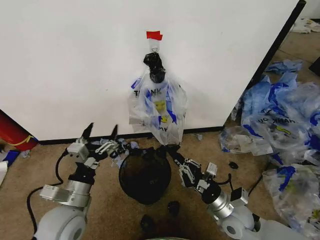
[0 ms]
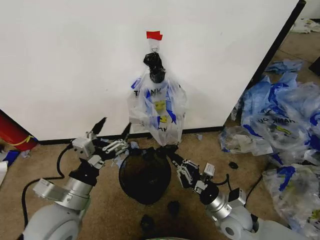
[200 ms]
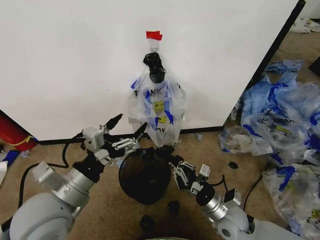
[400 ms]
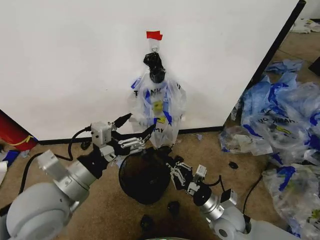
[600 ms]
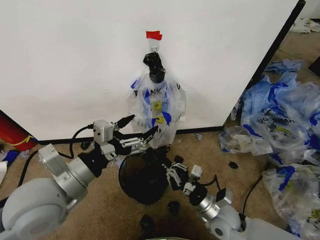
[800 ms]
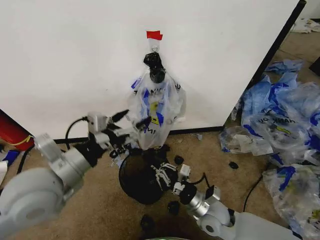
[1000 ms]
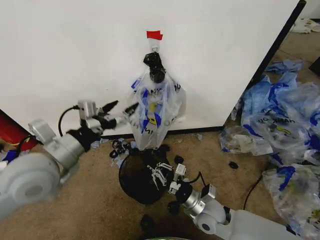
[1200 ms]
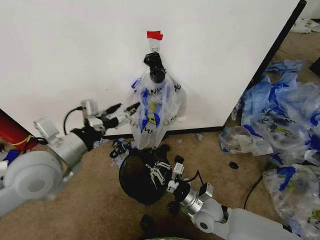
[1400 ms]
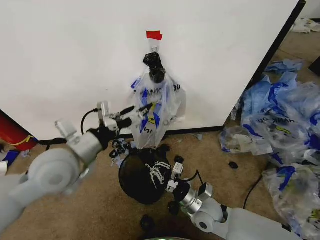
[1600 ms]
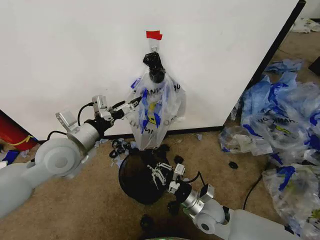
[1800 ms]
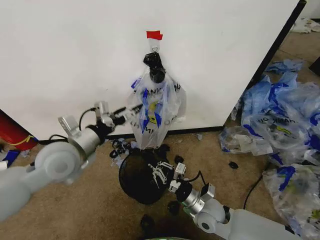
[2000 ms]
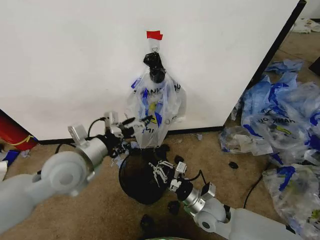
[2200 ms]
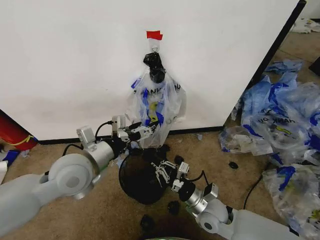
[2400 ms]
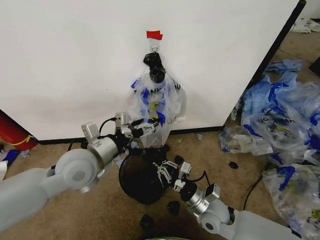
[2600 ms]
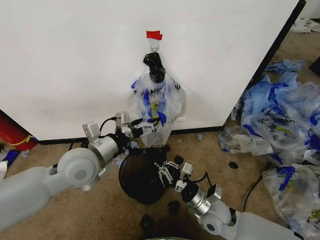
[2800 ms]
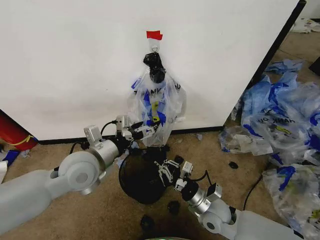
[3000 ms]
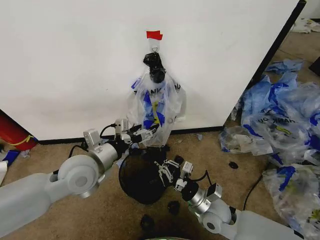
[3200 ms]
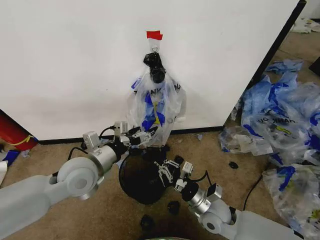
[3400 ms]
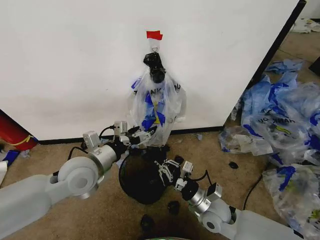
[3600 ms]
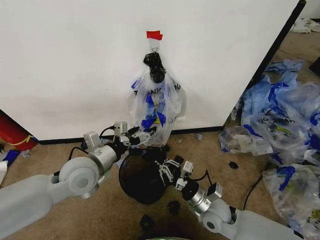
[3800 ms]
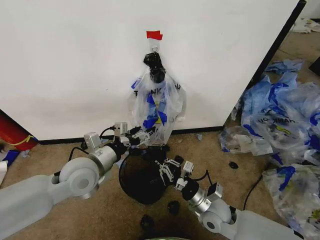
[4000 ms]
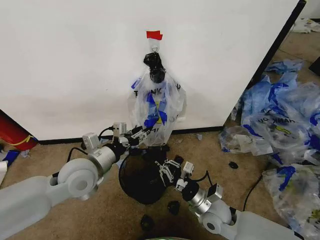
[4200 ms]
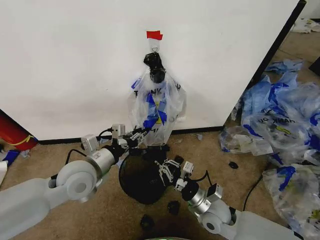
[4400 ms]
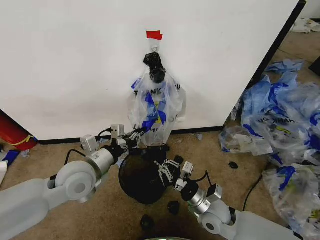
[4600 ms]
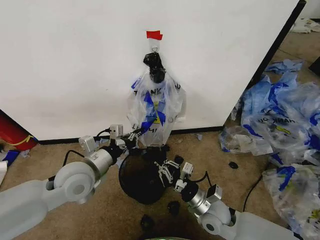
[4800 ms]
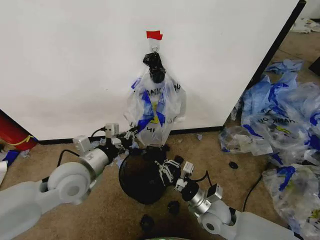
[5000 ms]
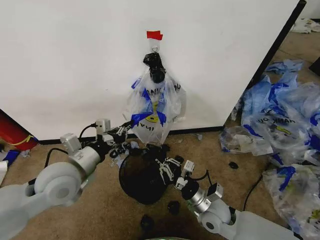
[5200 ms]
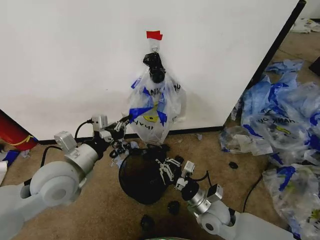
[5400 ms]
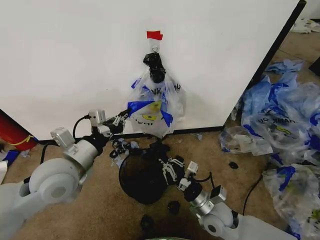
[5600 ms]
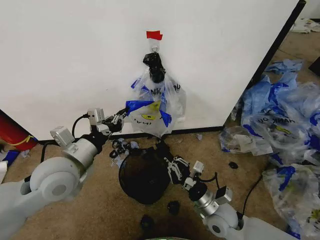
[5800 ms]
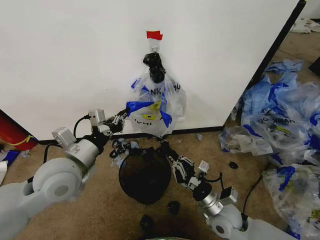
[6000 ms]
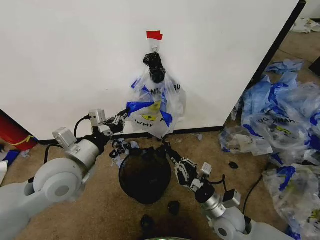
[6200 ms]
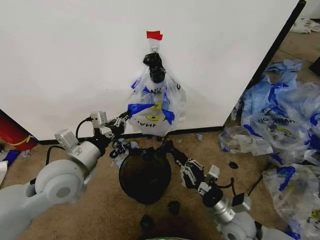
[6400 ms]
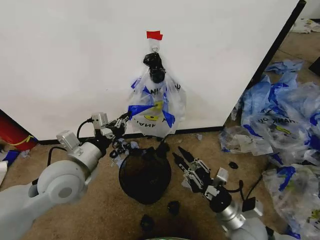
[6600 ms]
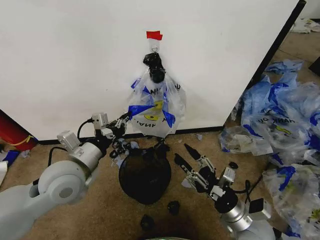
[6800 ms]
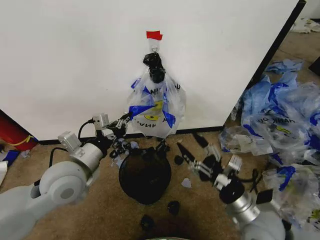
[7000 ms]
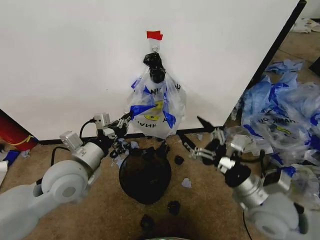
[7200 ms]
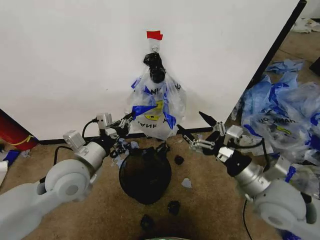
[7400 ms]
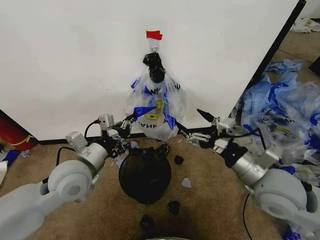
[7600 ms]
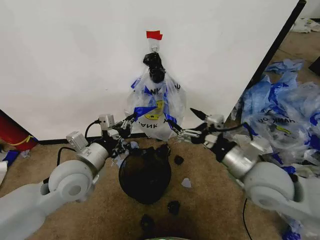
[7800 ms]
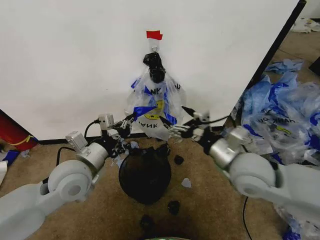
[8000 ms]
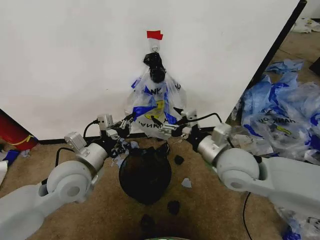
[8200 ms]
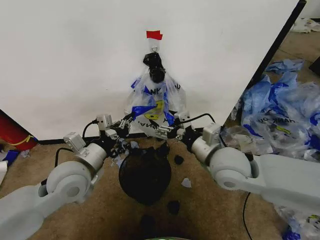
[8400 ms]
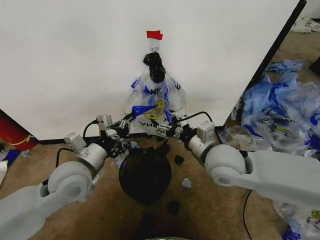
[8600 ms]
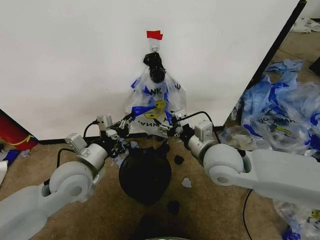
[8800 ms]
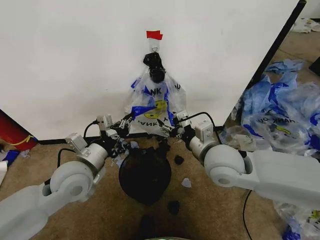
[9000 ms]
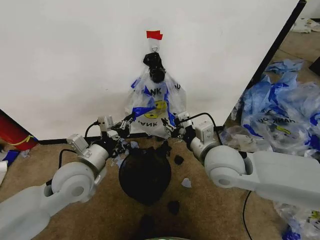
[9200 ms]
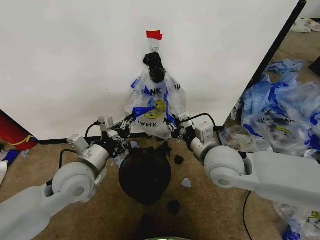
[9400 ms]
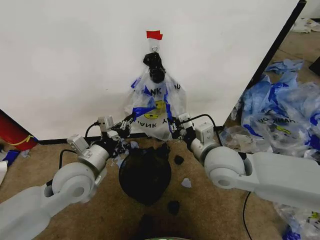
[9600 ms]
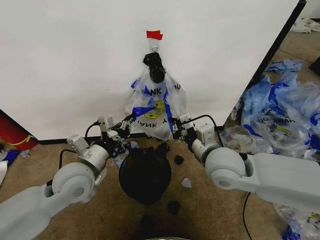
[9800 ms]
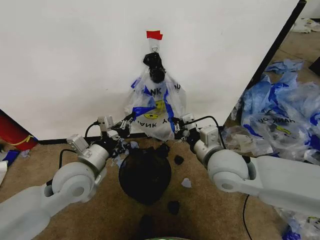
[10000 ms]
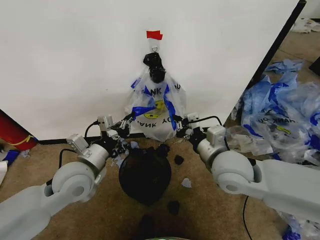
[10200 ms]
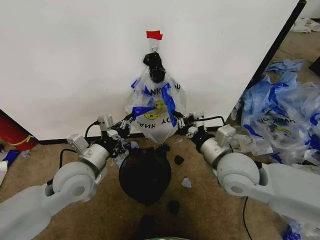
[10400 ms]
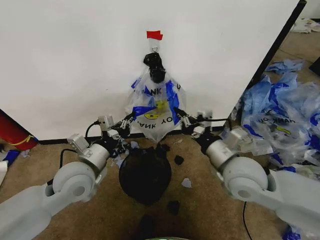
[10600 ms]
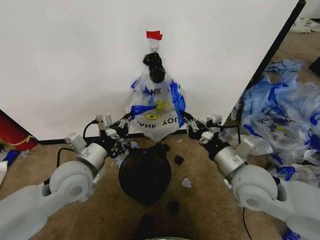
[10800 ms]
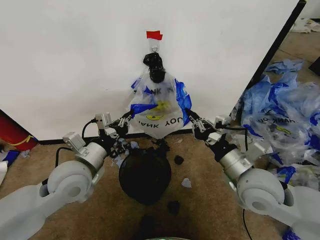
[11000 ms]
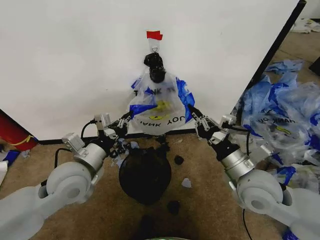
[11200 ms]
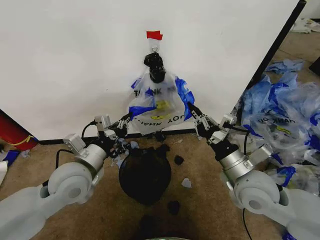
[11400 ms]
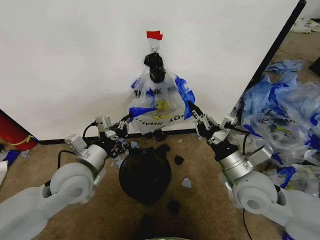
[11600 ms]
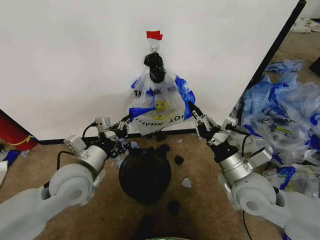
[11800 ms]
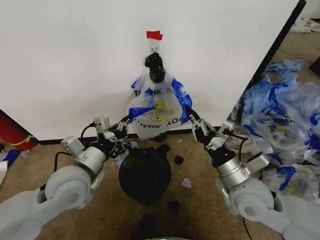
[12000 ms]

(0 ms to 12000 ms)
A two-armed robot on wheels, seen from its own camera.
Task of the whole recording: Pick up the garbage bag from the wall and place it over the trash bin.
0 ms - 1600 ms: The left gripper travels upward and forward by approximately 15 cm, while the right gripper shifts some 10 cm to the left.
1600 ms - 3000 ms: The left gripper moves approximately 5 cm.
3000 ms - 4400 ms: The left gripper closes up.
4400 ms - 6000 ms: The left gripper changes place by approximately 5 cm.
6000 ms - 7600 ms: The right gripper heads upward, covering some 20 cm, and opens.
7600 ms - 9000 ms: The right gripper moves to the left and forward, about 15 cm.
9000 ms - 10400 ms: The right gripper closes.
10400 ms - 12000 ms: The right gripper shifts by approximately 5 cm.

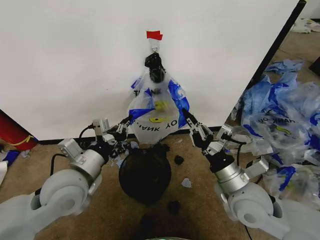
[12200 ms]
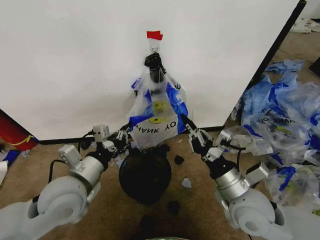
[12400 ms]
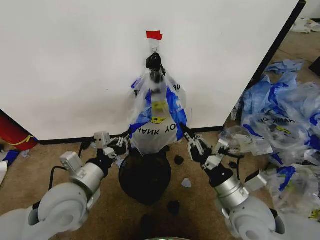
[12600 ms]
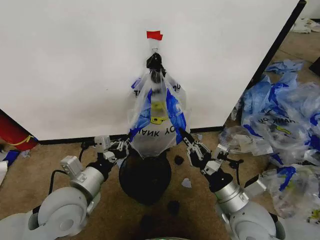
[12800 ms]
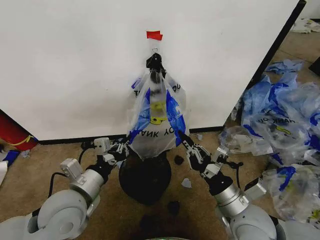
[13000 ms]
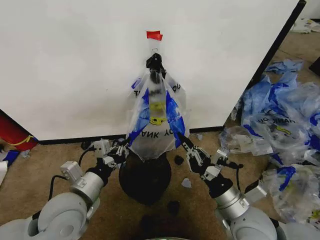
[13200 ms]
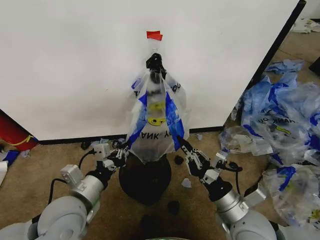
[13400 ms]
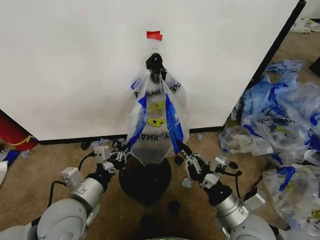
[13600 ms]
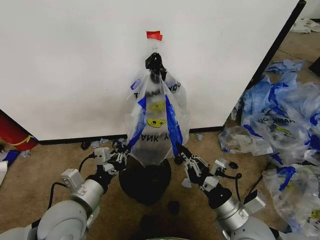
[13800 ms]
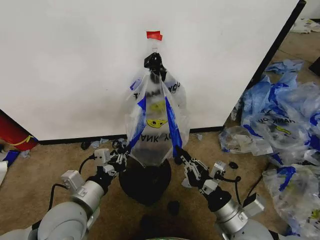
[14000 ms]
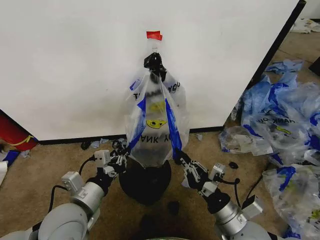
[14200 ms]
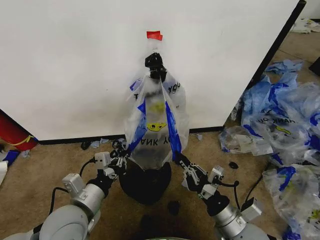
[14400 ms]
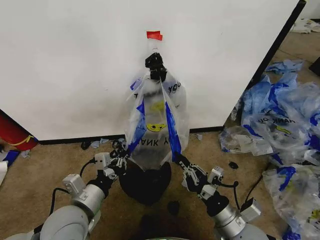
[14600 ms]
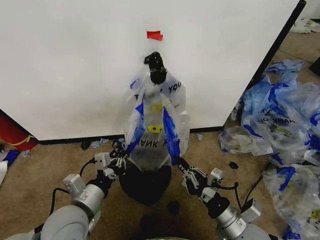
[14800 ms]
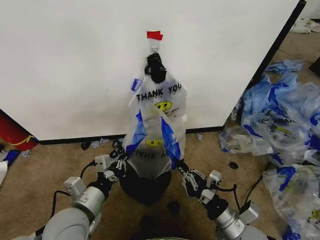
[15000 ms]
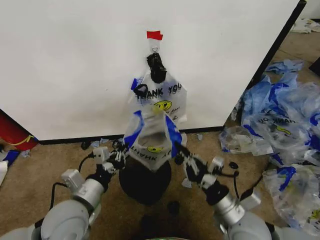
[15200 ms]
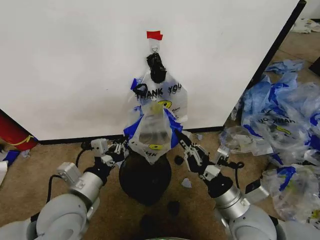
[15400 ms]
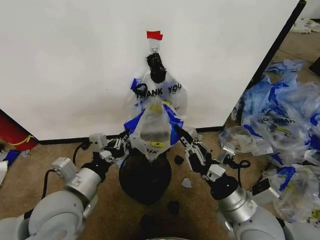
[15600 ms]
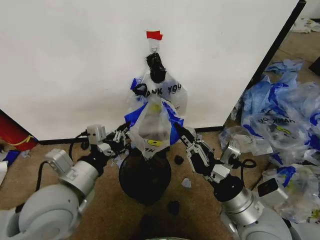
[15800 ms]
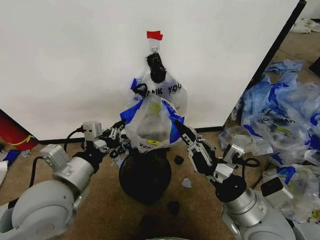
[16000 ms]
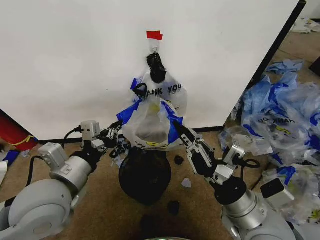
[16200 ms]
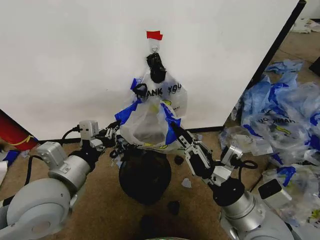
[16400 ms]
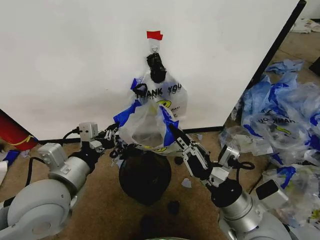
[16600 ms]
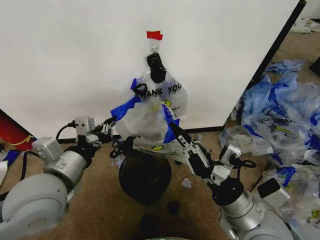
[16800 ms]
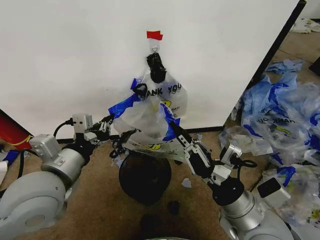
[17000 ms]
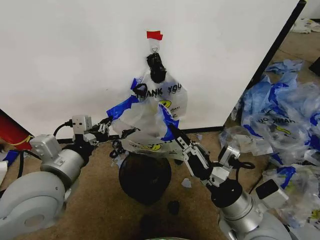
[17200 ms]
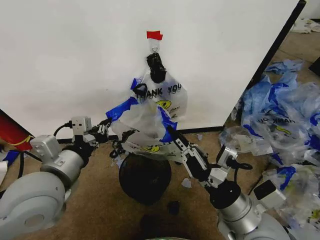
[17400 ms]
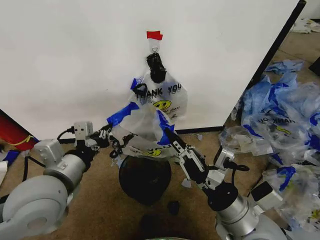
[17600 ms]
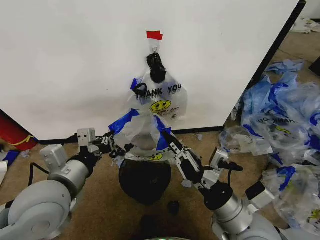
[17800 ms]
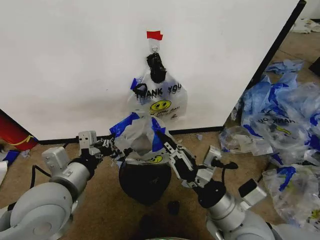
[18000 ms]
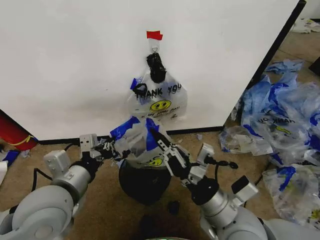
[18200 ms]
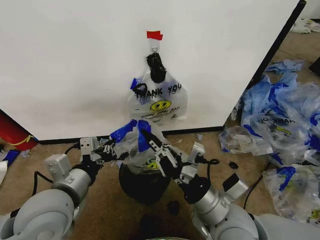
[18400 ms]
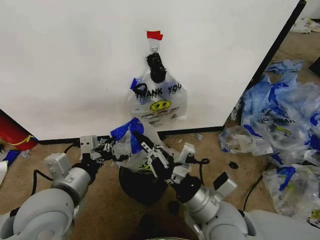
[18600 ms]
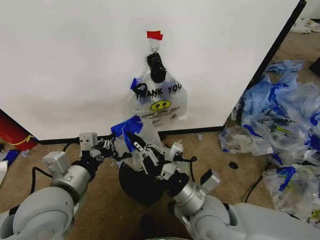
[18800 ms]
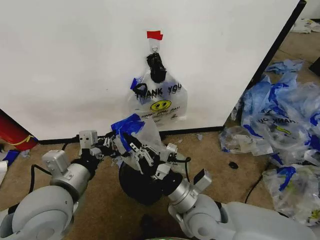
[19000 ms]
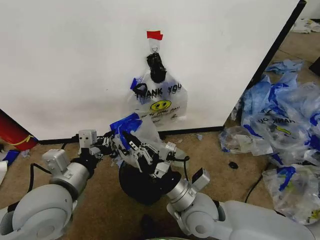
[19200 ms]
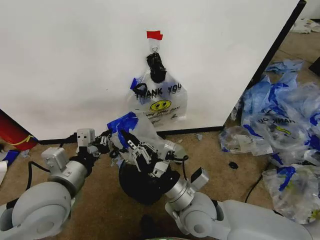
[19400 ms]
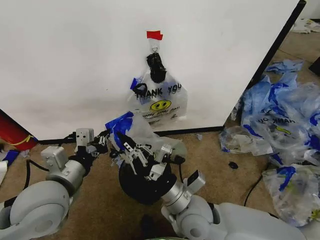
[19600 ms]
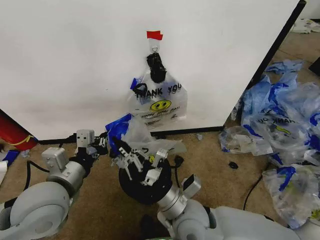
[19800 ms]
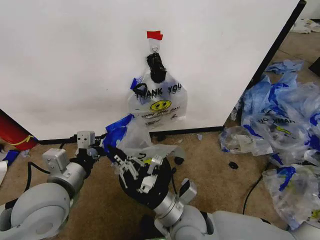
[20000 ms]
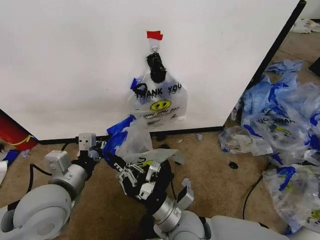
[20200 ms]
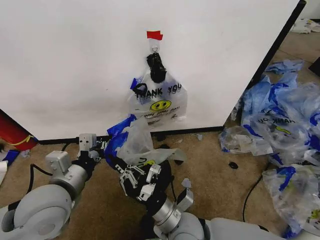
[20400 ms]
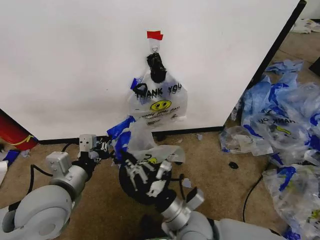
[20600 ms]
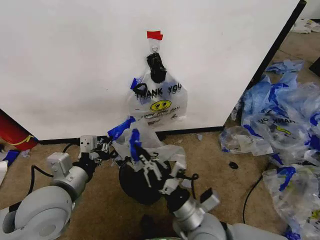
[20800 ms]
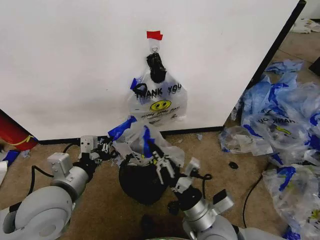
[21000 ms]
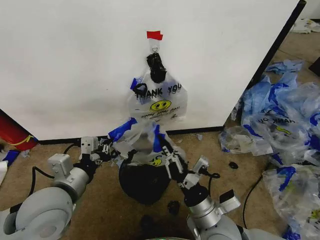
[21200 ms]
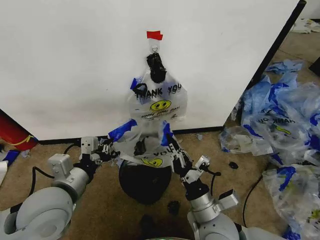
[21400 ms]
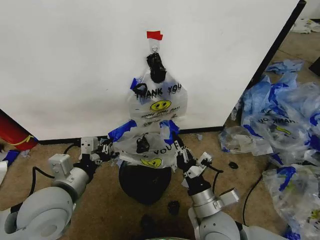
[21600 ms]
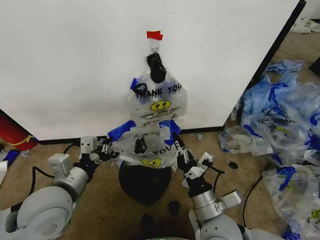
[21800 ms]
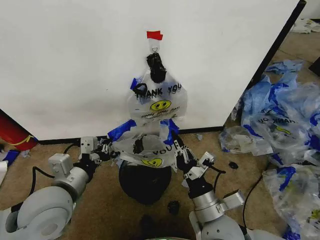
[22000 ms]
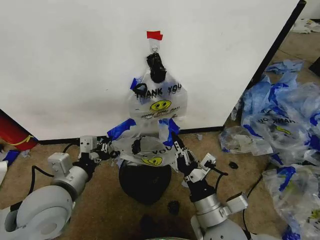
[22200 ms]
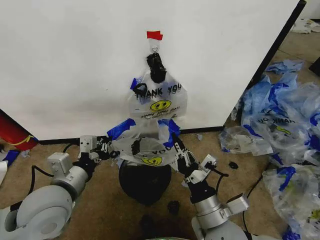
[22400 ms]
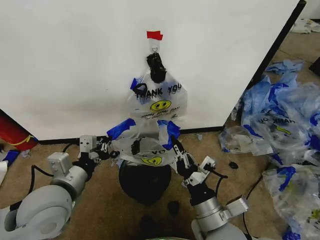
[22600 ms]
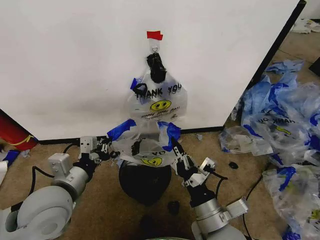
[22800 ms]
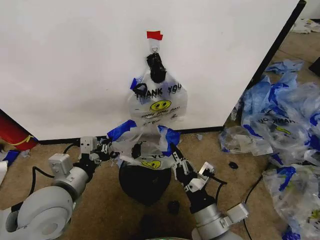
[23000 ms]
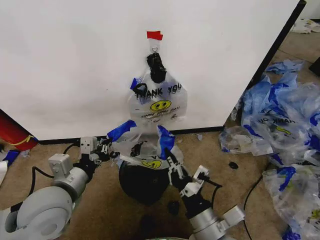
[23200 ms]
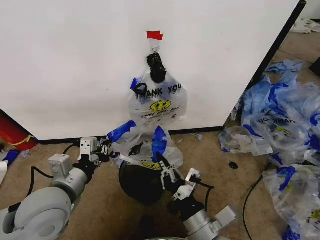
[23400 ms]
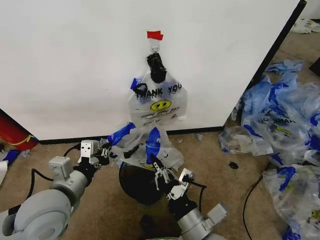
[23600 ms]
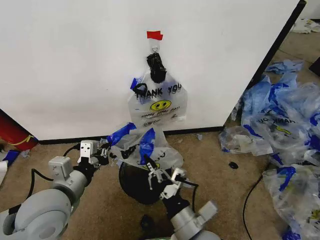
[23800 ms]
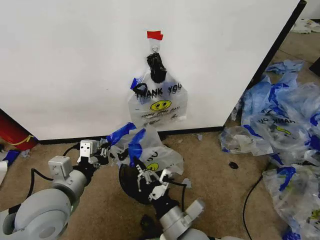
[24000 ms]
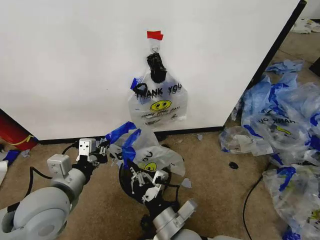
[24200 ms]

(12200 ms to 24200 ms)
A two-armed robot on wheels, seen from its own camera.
Task of the whole recording: Pick up the garbage bag from the wall and place it over the trash bin.
12200 ms - 13800 ms: The right gripper heads backward and downward, covering roughly 10 cm. Meanwhile the left gripper moves backward, approximately 5 cm.
13800 ms - 15200 ms: The grippers stay close to where they were, moving slightly.
15200 ms - 16600 ms: Both grippers travel together upward, about 10 cm.
16600 ms - 18200 ms: There are only small adjustments of the grippers.
18200 ms - 19800 ms: The right gripper travels to the left and downward by roughly 10 cm.
19800 ms - 21200 ms: The right gripper shifts roughly 5 cm to the right.
21200 ms - 22600 ms: The grippers make only small movements.
22600 ms - 24200 ms: The right gripper is displaced to the left by approximately 10 cm.
